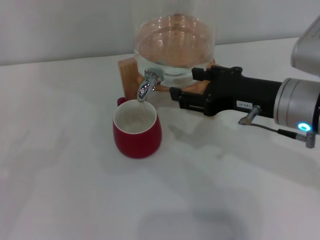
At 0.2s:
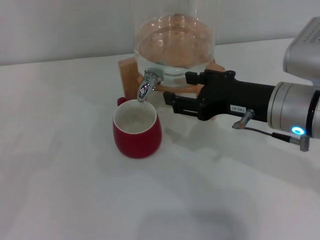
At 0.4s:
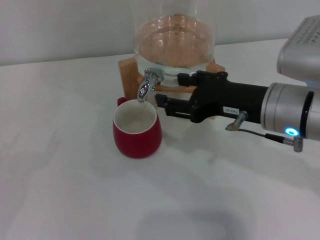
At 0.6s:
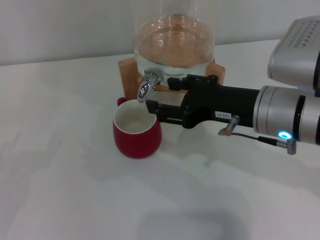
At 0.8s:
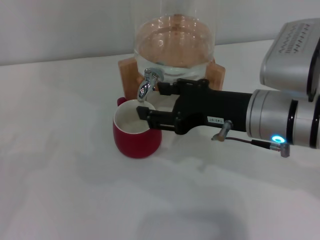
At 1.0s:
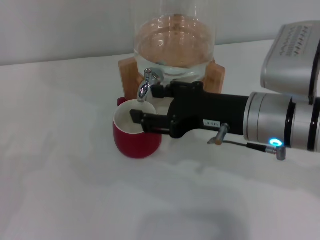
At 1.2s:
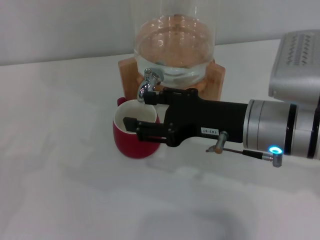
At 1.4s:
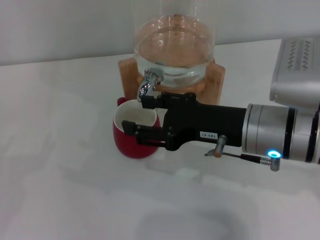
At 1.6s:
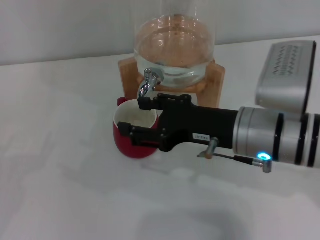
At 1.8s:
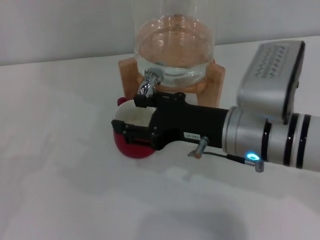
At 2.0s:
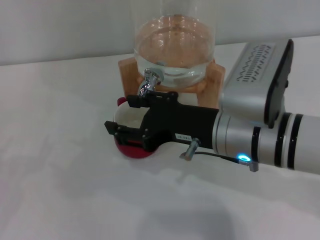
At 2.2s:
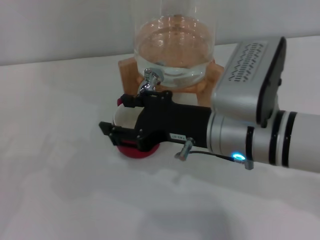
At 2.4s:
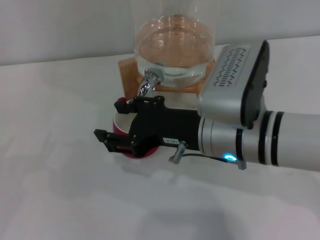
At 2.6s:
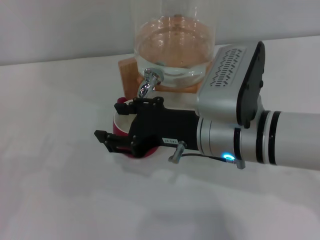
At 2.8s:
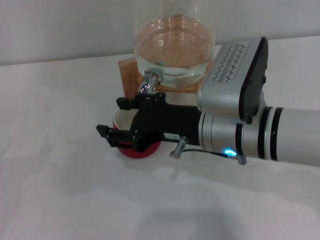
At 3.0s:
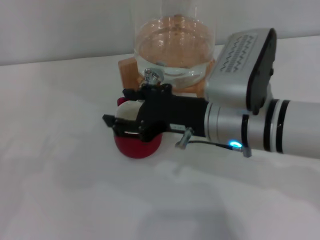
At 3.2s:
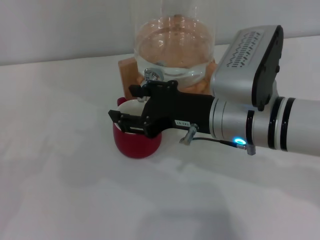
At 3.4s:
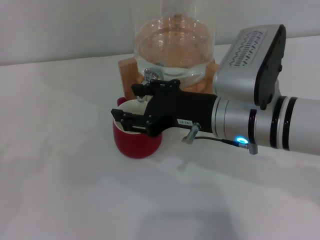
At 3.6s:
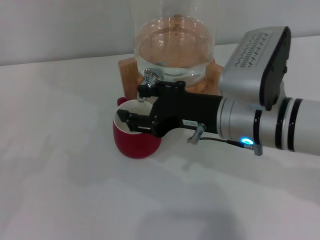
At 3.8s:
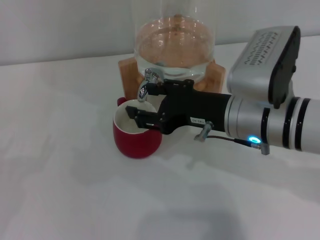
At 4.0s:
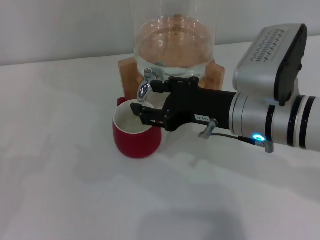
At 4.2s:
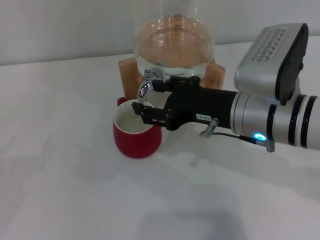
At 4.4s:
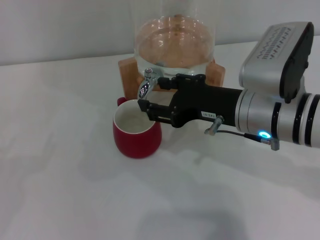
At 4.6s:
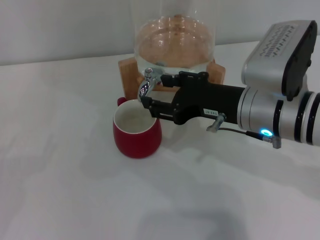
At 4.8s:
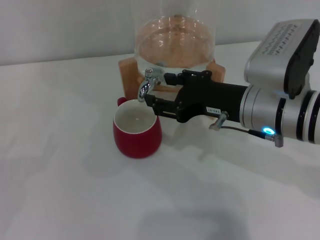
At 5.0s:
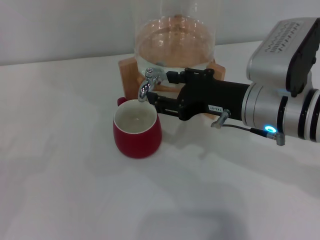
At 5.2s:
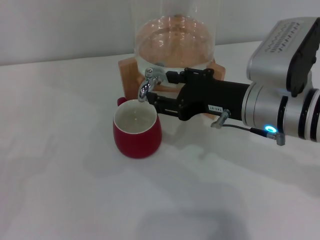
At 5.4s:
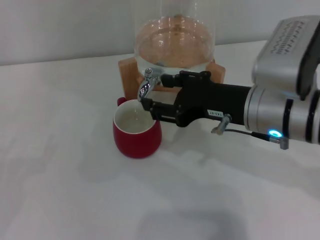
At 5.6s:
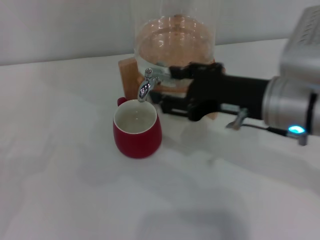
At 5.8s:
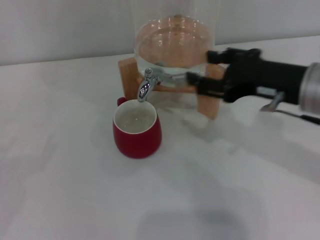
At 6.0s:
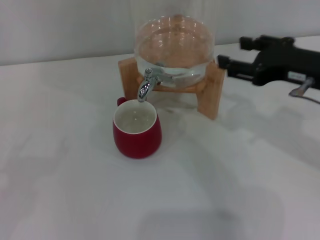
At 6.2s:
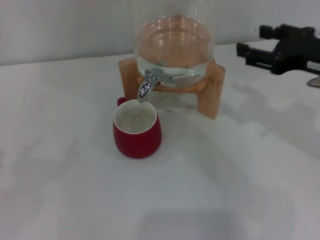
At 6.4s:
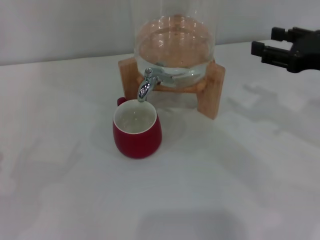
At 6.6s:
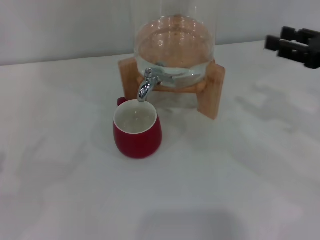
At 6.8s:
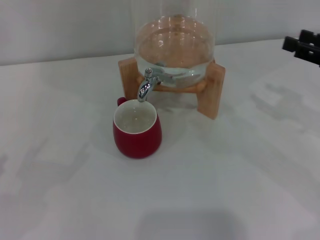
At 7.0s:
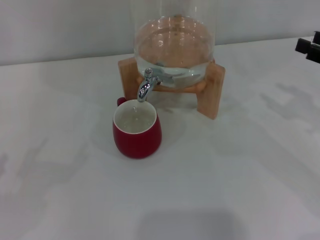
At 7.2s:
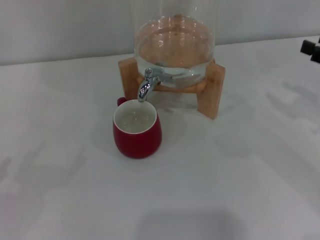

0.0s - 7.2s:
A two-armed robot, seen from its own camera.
Task of the whole recording: the left gripper pick up the red cup and place it horizontally under the faucet, the right gripper turn on the faucet to fill the cup, and then turn off the faucet.
Step, 0.0s - 5.2s: Close the dispenser valve with the right gripper.
0.0s - 1.4s: The grippers make only small movements.
1.4s - 2.8s: There are only small adjustments of the grippers.
4.4s - 5.8s: The right gripper shifts some 5 cm to the right.
5.8s - 7.2s: The right gripper is displaced to the right by roughly 15 cm.

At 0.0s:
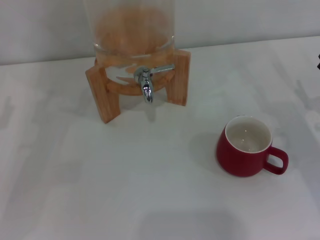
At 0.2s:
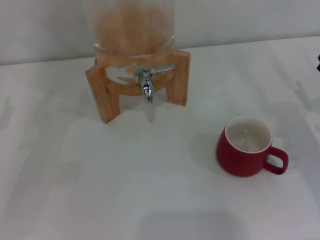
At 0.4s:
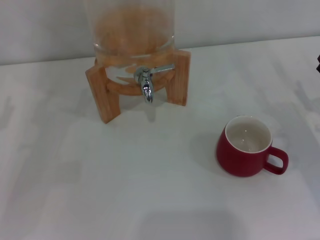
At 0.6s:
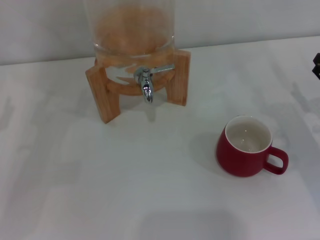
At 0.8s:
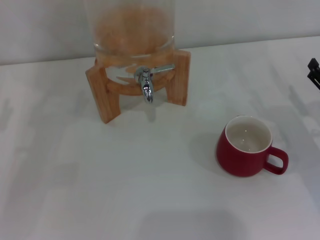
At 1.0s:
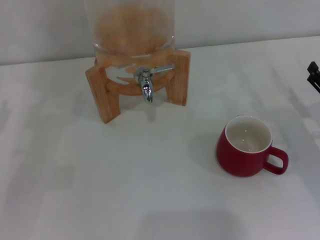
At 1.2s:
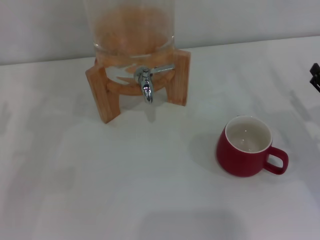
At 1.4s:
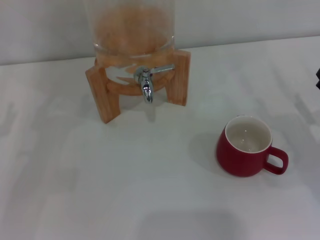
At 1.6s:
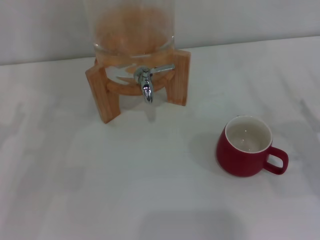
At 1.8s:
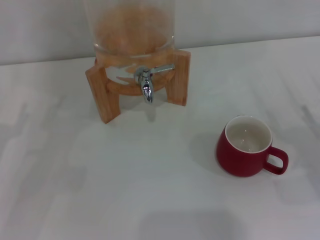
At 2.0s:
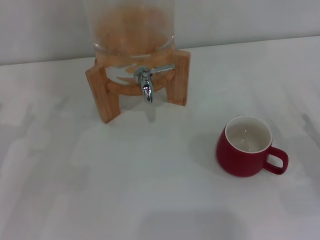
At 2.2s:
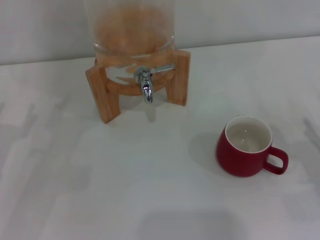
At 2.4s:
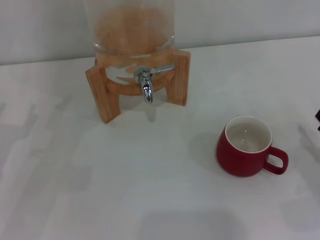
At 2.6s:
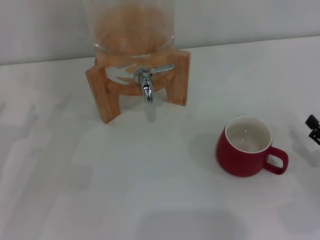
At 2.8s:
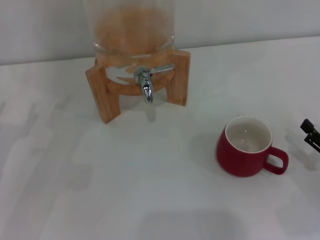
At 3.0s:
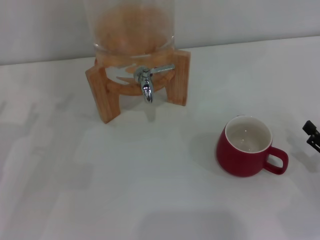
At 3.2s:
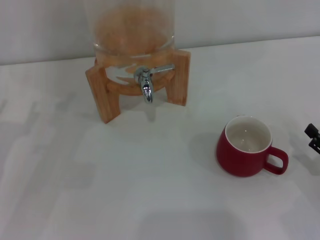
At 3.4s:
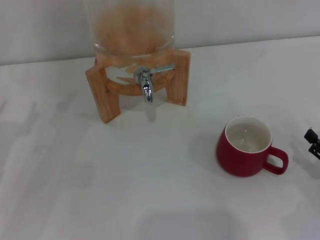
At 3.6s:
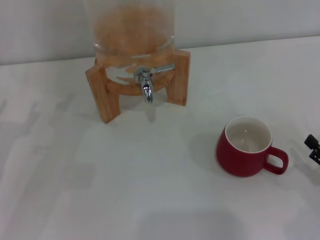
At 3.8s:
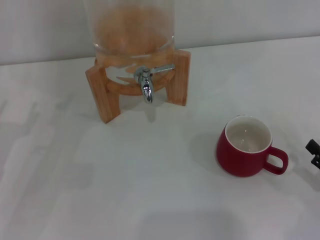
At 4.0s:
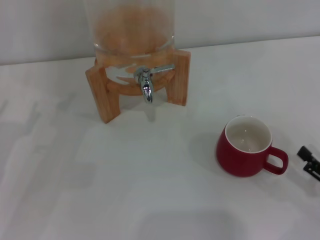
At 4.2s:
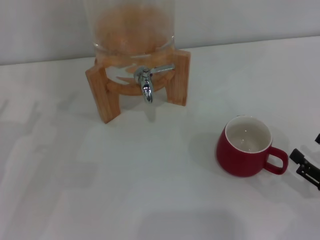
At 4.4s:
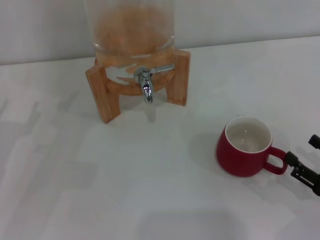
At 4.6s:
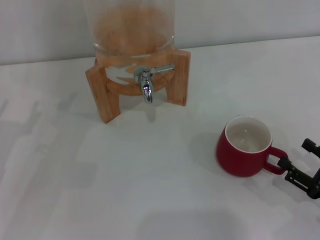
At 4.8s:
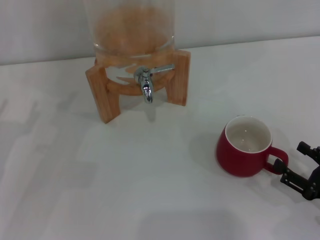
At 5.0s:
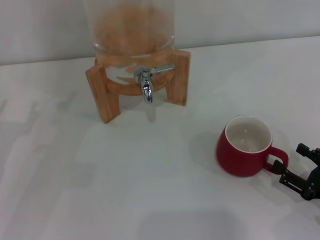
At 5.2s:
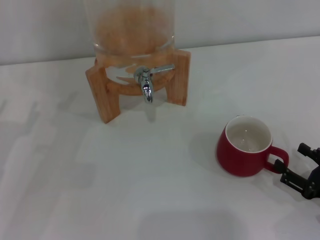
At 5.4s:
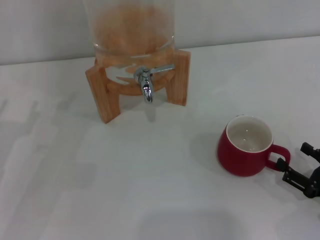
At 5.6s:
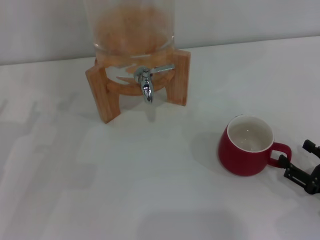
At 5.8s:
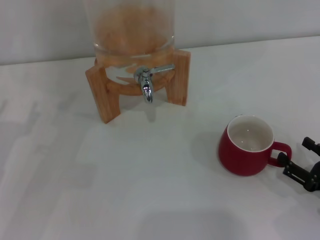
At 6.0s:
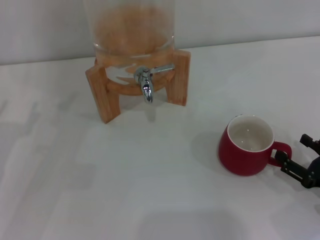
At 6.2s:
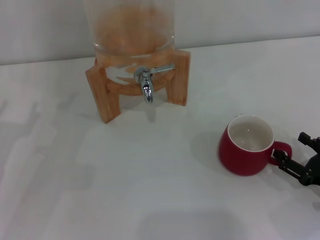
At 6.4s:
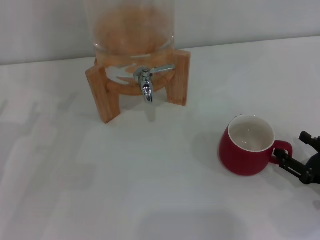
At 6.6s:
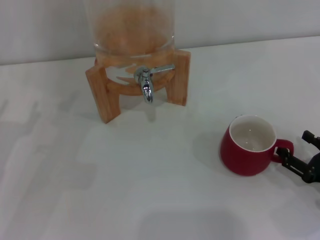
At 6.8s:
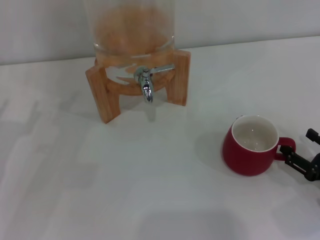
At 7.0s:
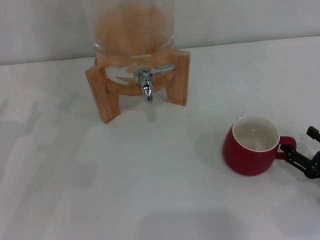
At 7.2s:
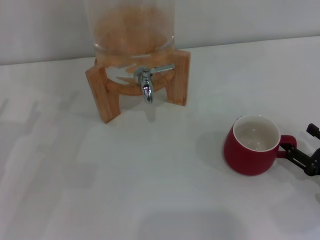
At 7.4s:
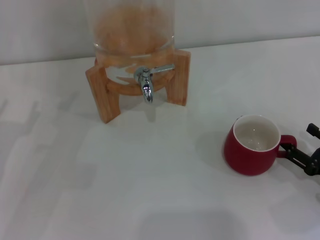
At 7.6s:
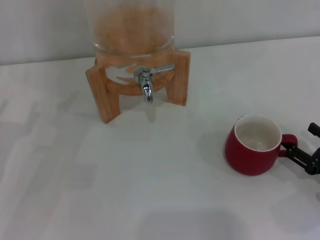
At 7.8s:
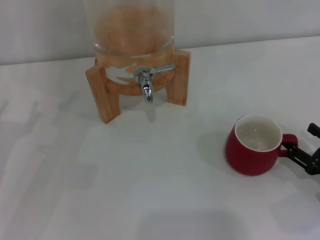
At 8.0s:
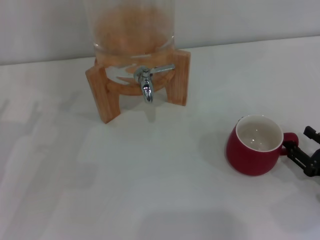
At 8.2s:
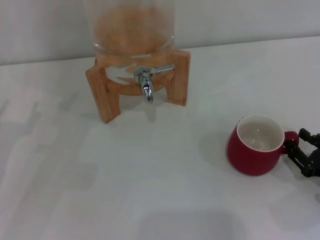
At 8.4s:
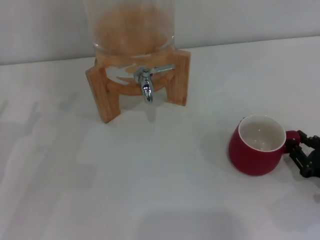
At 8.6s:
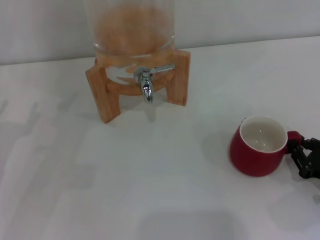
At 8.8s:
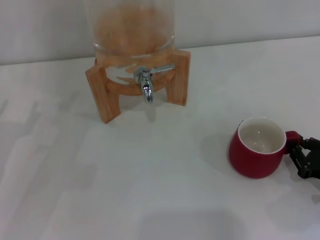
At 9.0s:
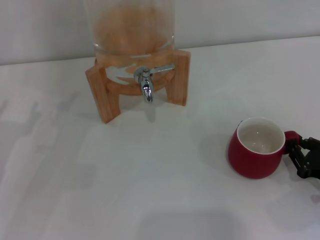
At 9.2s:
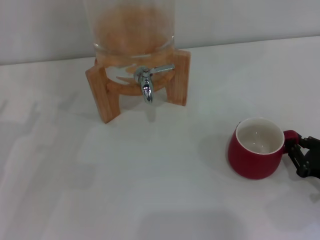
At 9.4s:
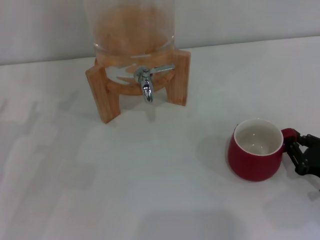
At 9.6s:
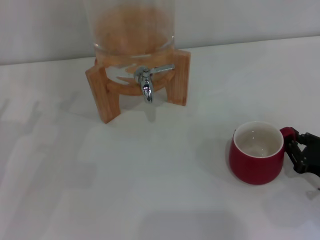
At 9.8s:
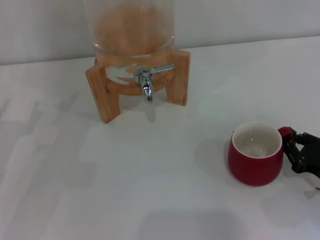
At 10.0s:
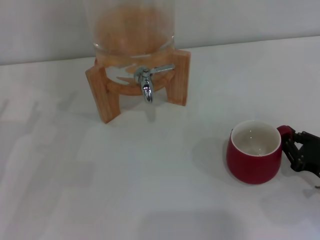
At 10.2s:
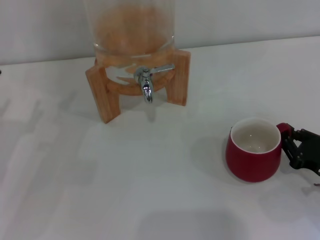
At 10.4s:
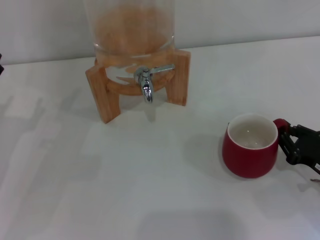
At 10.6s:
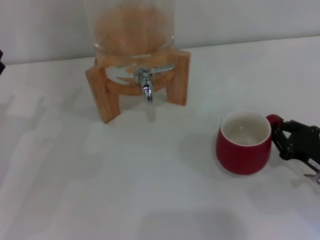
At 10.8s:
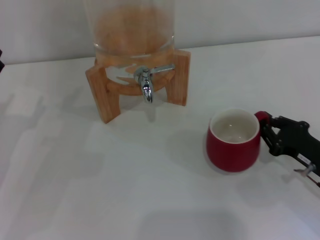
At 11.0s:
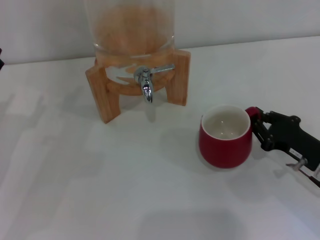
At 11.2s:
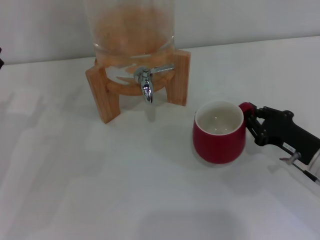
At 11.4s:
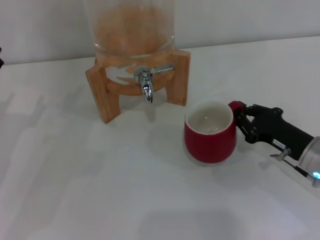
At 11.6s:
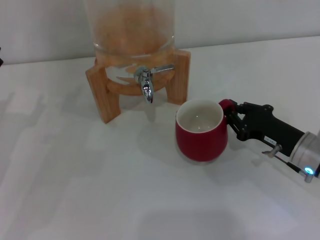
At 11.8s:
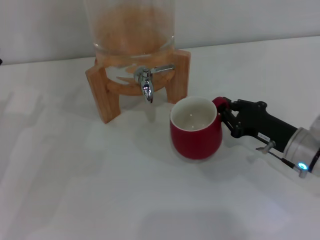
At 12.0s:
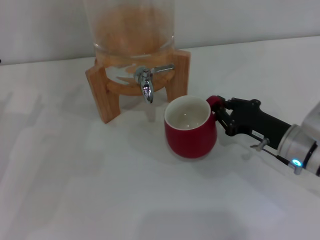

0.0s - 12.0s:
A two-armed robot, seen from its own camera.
Task of the whole recording: the right gripper pick up the red cup and place it horizontally under the faucet, the left gripper turn on the faucet to fill the cup, and then turn off the faucet.
3.0s - 7.6s: The grippers make only small movements.
7.6s - 9.0s: The right gripper closes.
9.0s - 10.4s: The grippers stay close to where they were, moving slightly.
10.4s - 12.0s: The right gripper heads forward and to the left, covering some 10 cm.

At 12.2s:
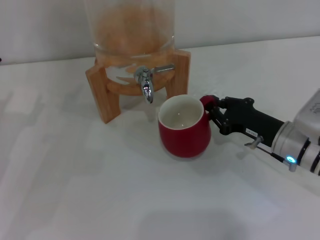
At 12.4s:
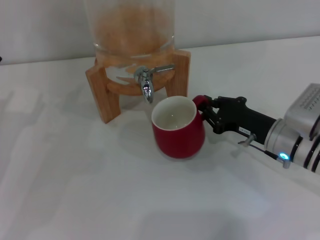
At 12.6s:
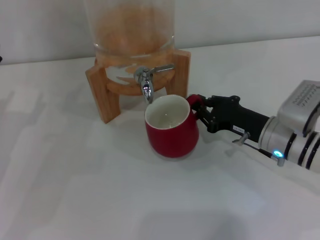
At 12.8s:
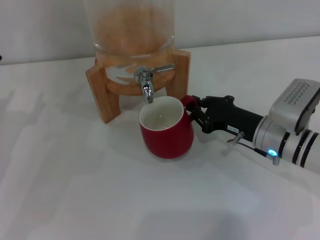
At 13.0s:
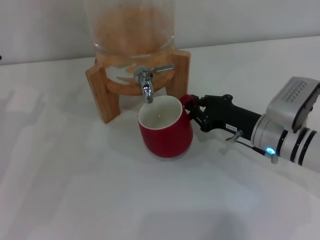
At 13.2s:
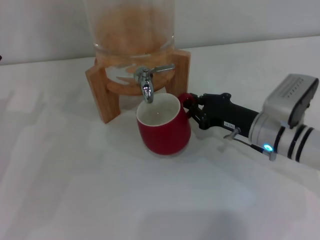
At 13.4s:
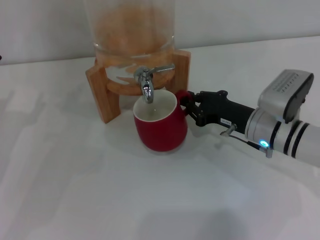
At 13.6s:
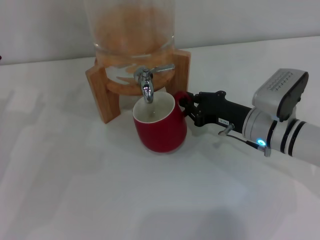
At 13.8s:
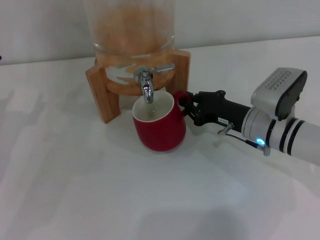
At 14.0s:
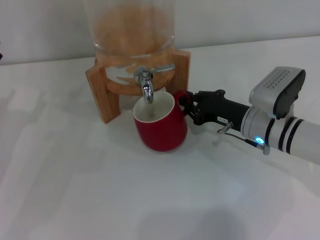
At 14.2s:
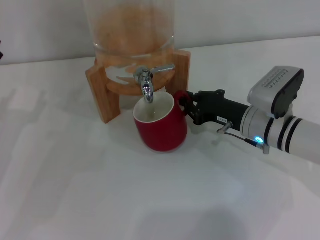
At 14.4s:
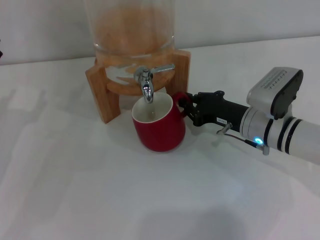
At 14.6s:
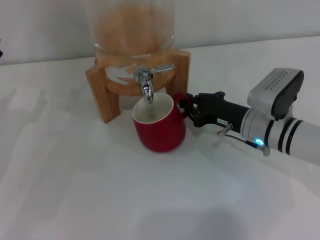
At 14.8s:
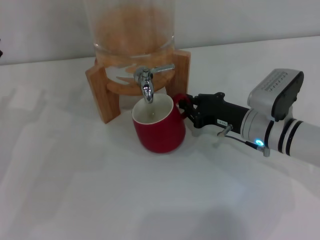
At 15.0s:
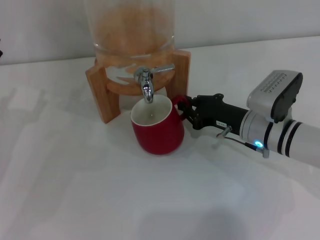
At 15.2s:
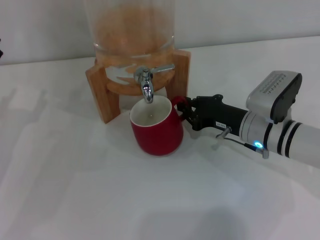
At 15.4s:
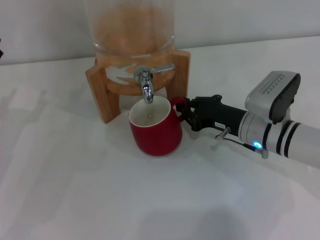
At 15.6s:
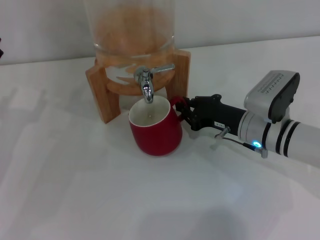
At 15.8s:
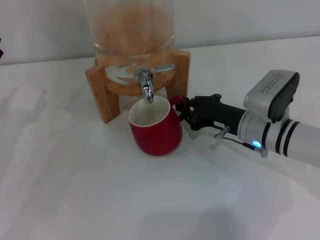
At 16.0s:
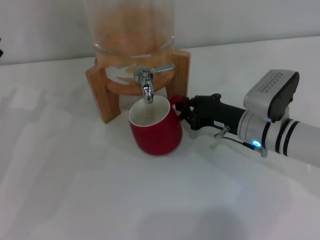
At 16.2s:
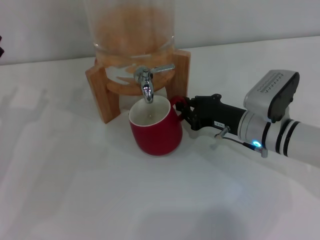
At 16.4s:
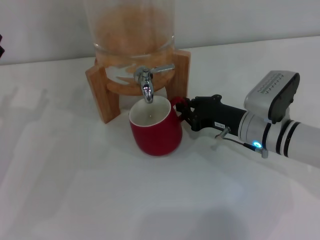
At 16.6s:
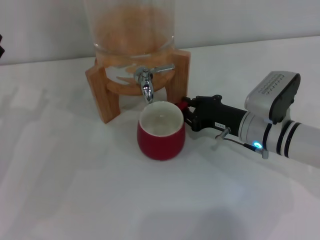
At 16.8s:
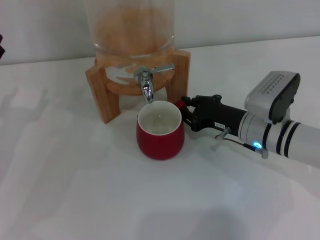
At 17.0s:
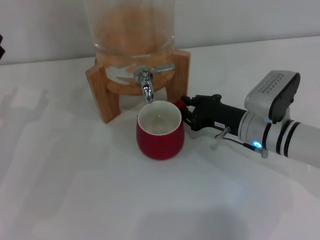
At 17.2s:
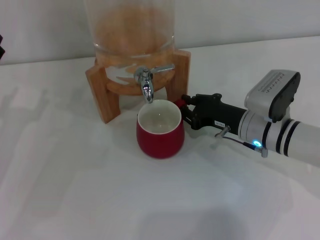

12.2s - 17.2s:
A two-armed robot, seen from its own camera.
Task of the whole recording: the right gripper pick up the red cup and place it horizontally under the faucet, the left gripper turn on the faucet to fill the cup, and then turn off the faucet.
12.2s - 13.8s: The right gripper ends up about 5 cm from where it was.
13.8s - 17.2s: The two grippers keep their place.
